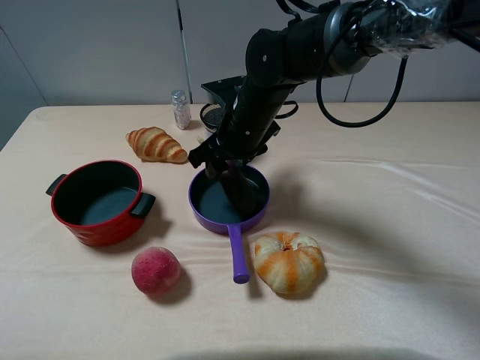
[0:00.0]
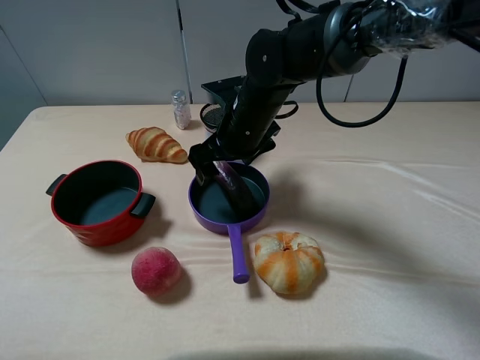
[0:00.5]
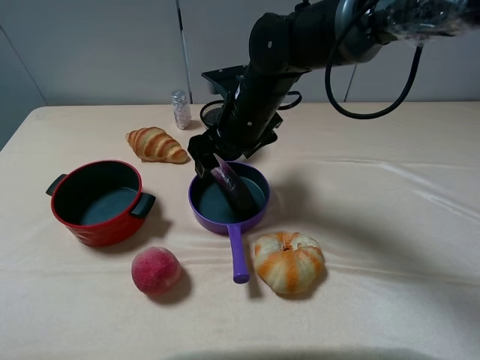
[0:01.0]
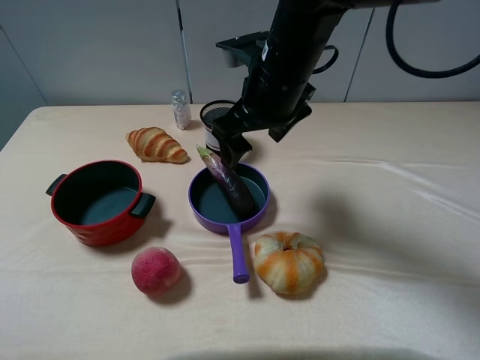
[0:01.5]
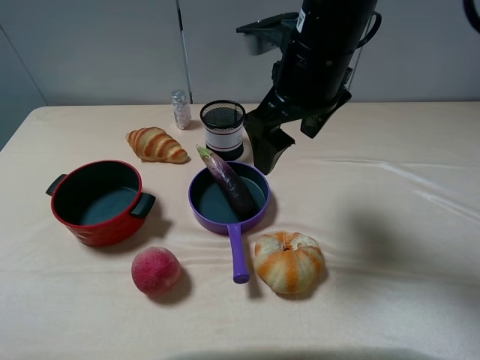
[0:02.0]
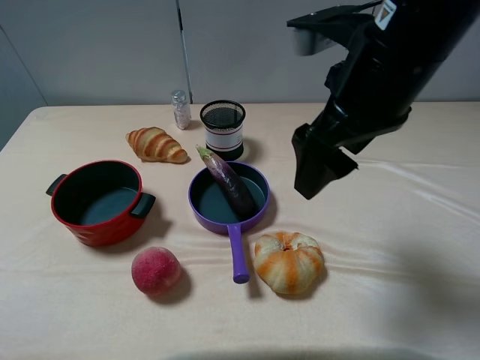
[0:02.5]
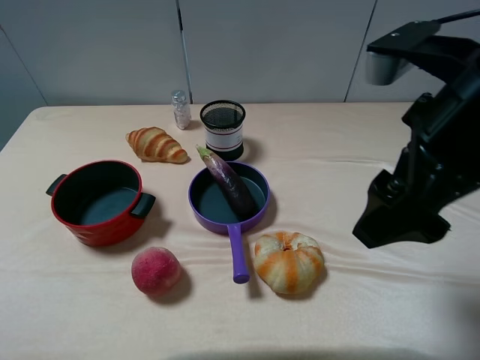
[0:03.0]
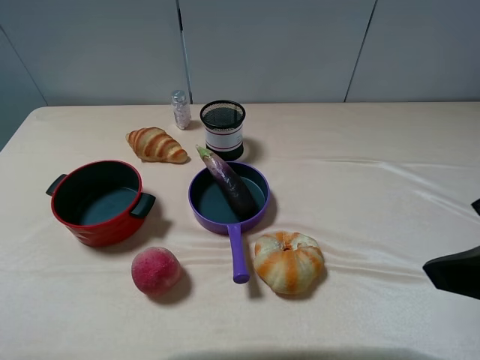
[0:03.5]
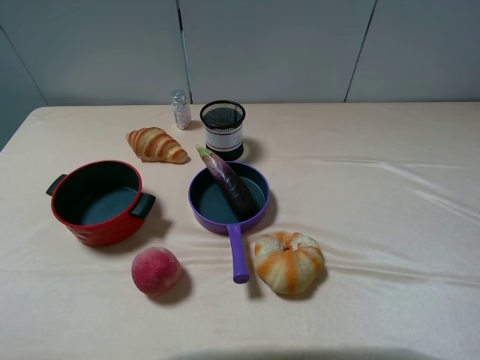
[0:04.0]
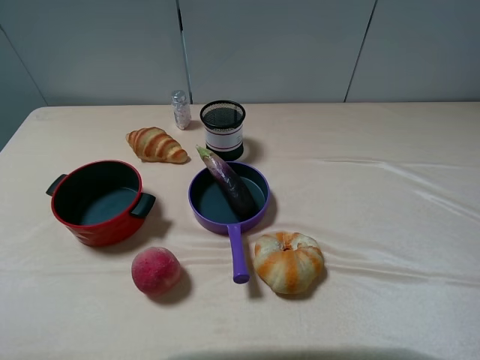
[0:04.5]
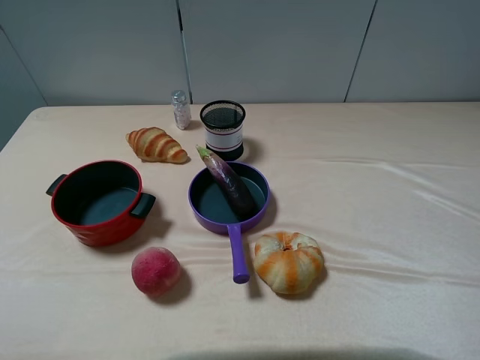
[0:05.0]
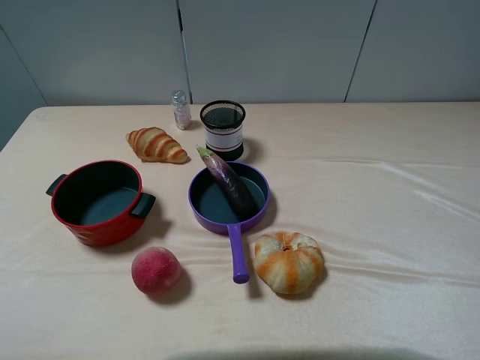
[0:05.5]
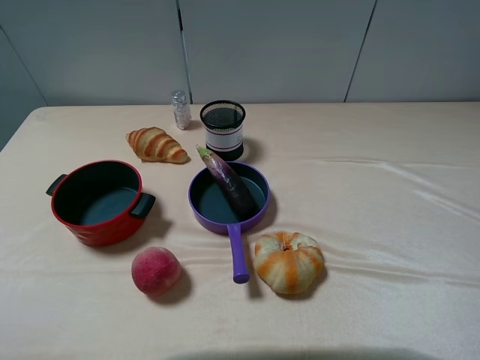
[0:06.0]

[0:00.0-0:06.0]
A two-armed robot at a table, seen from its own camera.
Task of the whole recording: pick up an item with a gripper and place it in a random container on the table.
0:00.0 to 0:02.0: The right gripper is displaced upward, backward and to the right by approximately 15 cm, and opens its fingers.
0:02.0 to 0:04.0: The right gripper moves backward and to the right, approximately 35 cm.

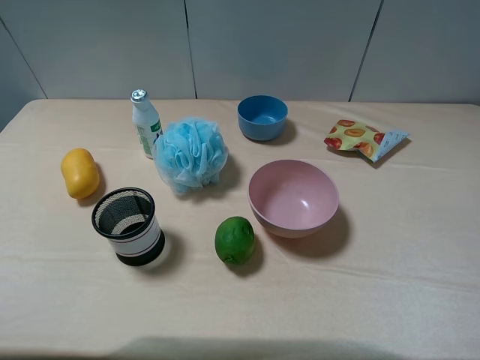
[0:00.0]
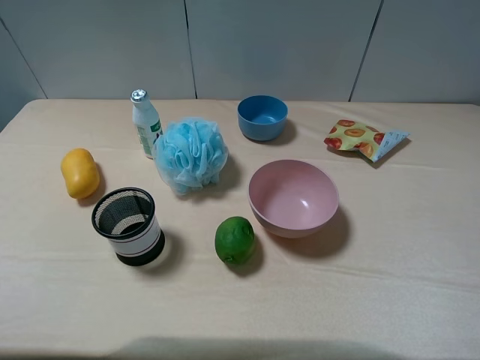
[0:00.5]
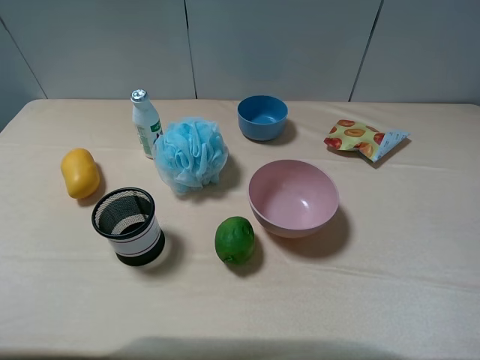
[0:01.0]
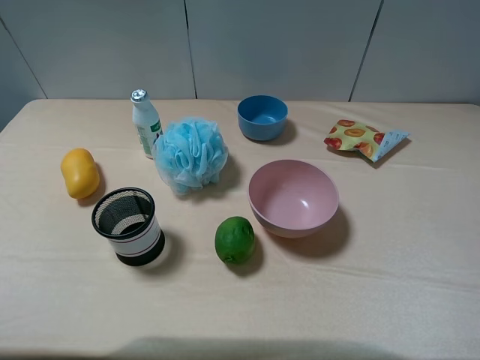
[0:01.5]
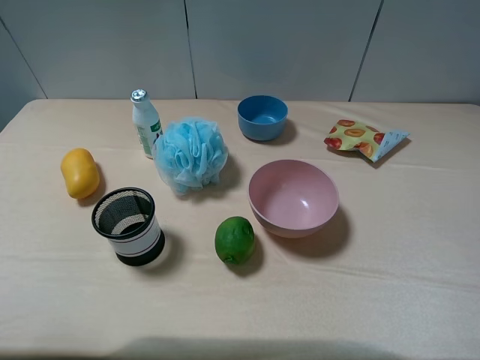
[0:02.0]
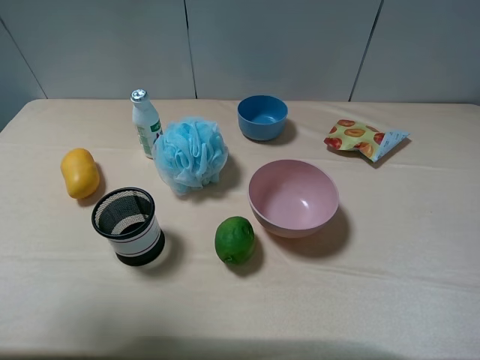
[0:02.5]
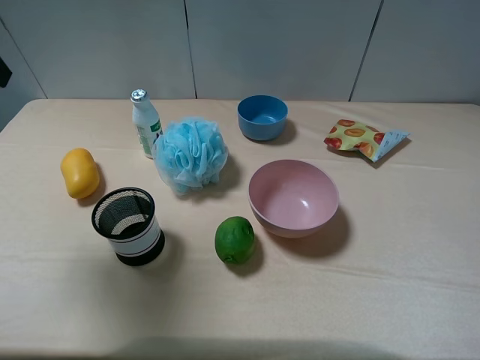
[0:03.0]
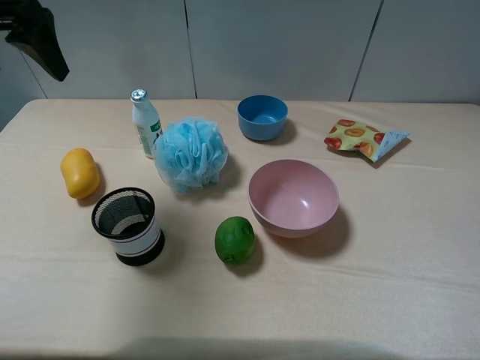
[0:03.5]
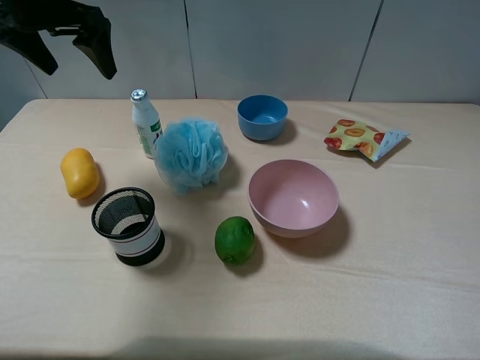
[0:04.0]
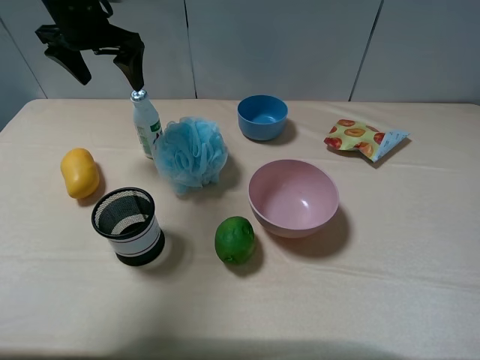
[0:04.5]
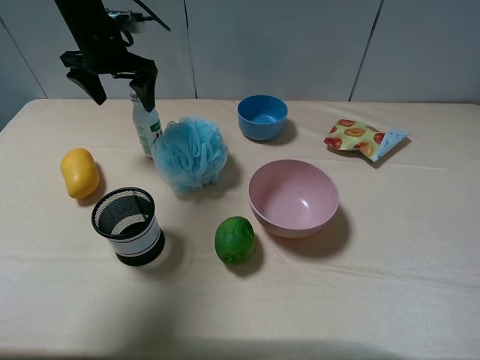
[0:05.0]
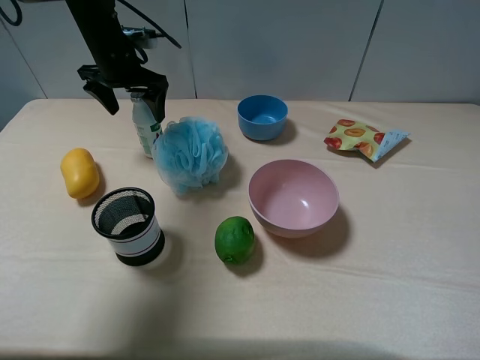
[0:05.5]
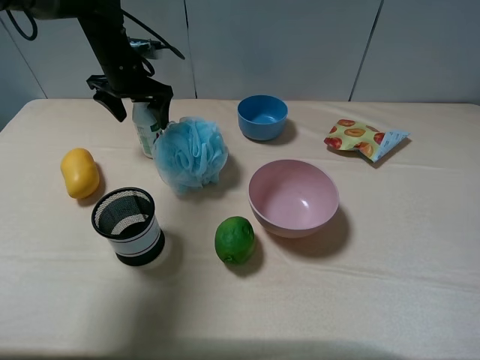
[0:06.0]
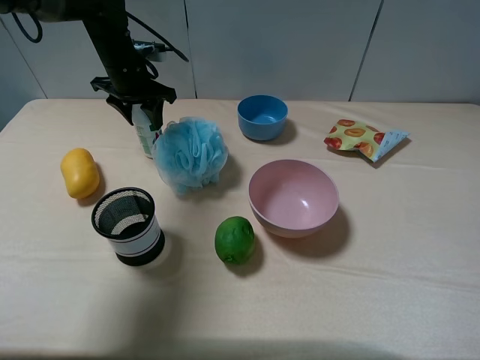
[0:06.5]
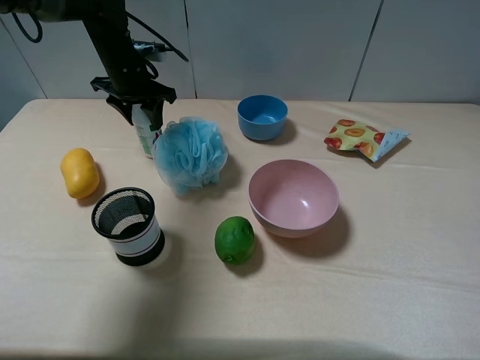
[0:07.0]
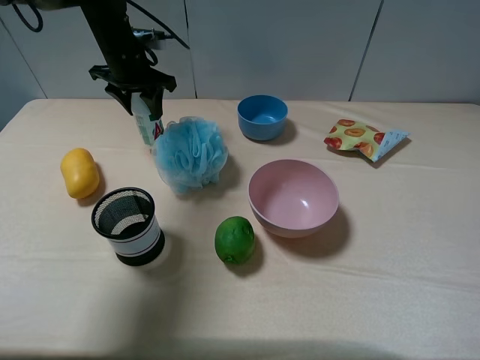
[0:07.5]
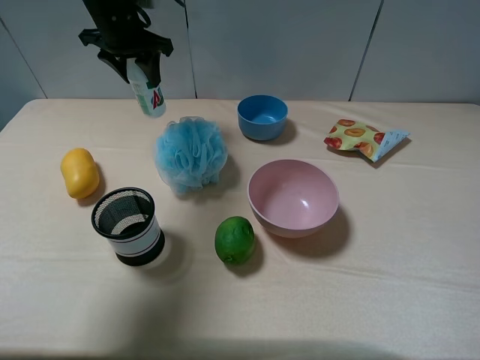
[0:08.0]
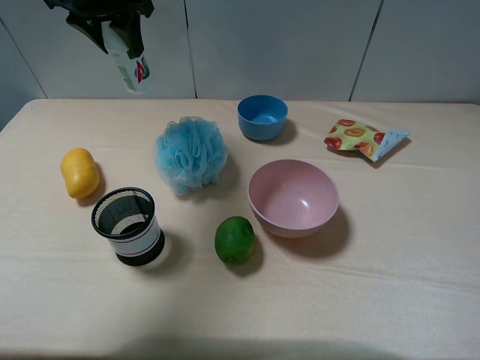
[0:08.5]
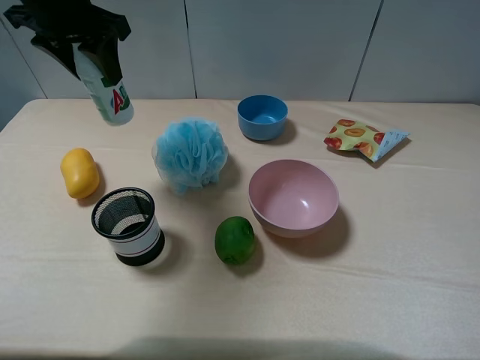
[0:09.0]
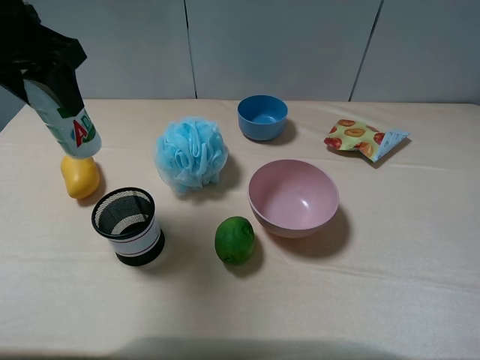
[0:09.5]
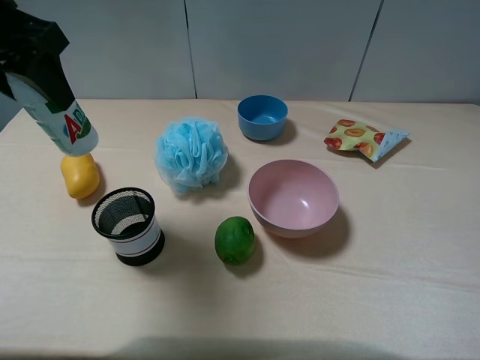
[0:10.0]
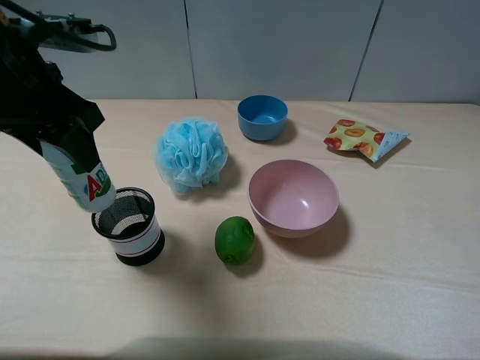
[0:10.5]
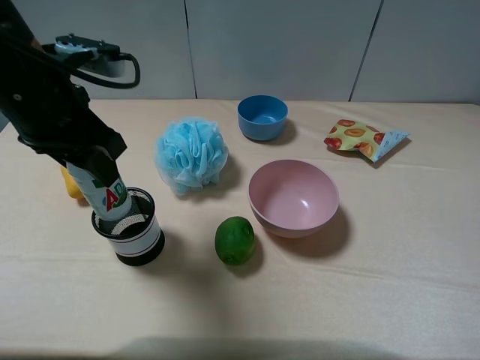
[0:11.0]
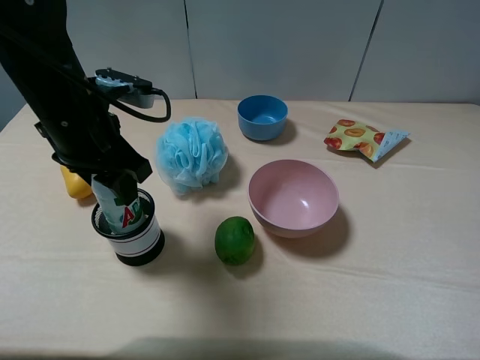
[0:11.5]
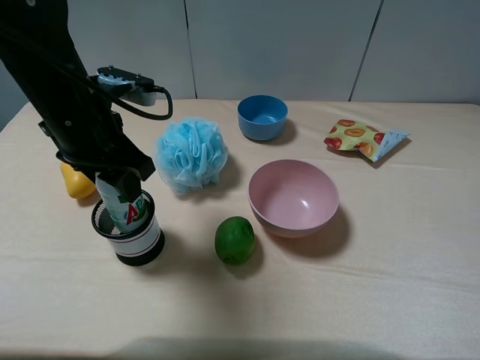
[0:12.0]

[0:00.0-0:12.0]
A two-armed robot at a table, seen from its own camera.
Task of the whole recording: pick up an item with a gripper and place it in a random container on the table.
Step, 0:00.0 to 0:06.0: Grasp the AD milk with the left gripper.
0:02.0 to 0:04.0: The left gripper travels forward by some 30 cm.
0:04.0 to 0:06.0: The left gripper travels downward and forward by some 15 cm.
0:06.0 to 0:08.0: The left gripper goes roughly 10 cm upward, and closes.
0:08.0 to 0:10.0: The left gripper heads backward, covering some 20 cm.
0:10.0 to 0:12.0: The left gripper travels downward and to the right by some 15 cm.

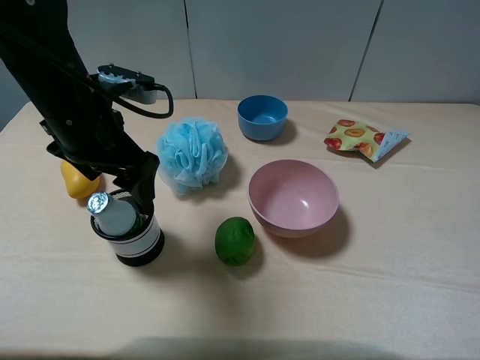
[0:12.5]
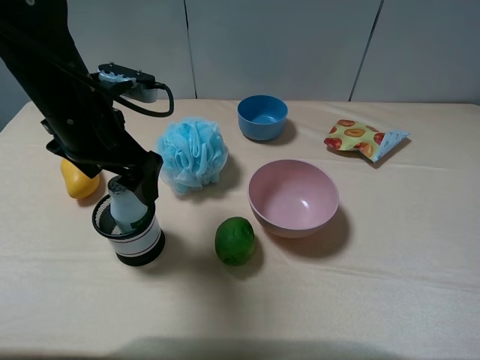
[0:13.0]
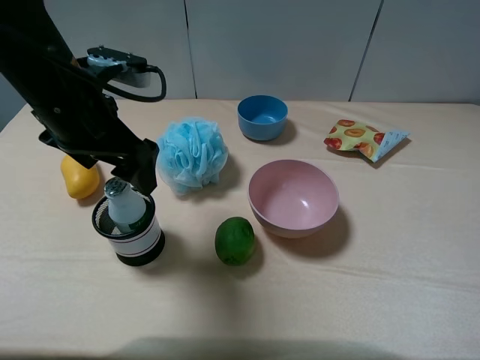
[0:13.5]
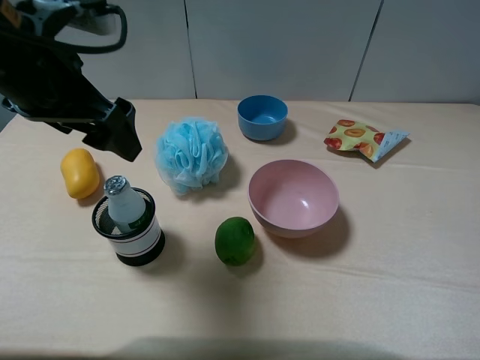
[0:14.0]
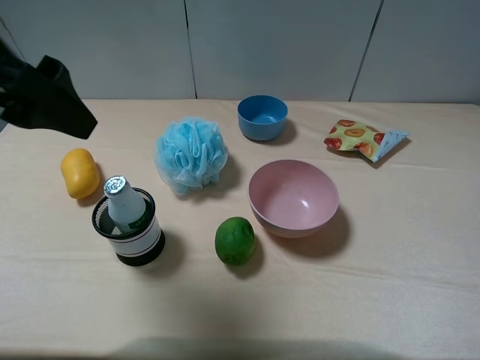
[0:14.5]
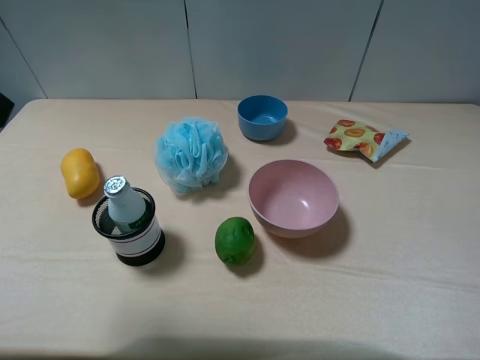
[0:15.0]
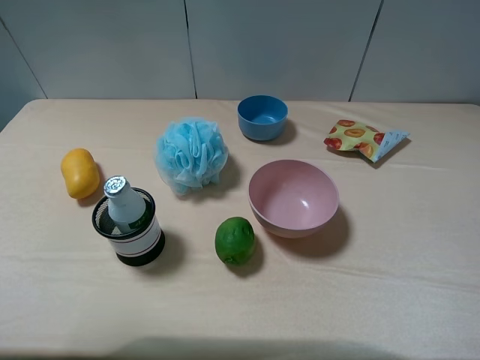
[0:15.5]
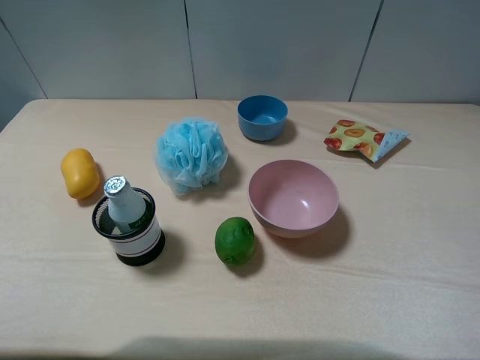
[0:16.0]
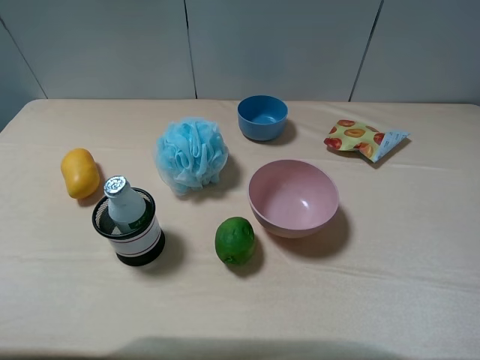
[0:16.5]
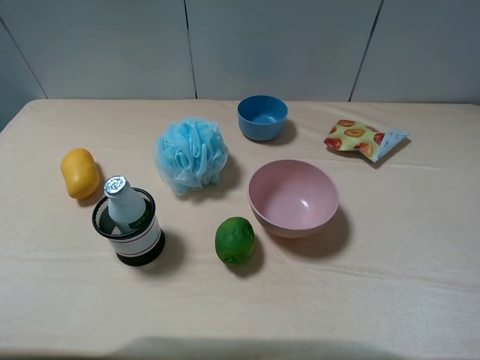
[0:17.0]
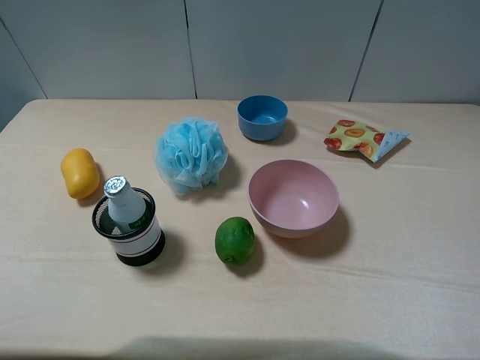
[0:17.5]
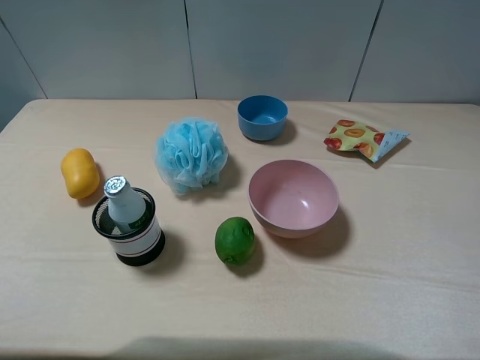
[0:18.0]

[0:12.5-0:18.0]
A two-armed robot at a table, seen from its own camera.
Task of the whole recording: pick up an item with a gripper and place it in a random container on the table.
0:12.5 to 0:14.5: The left gripper travels upward, backward and to the left by roughly 15 cm.
0:14.5 to 0:16.0: The left gripper moves backward and to the left, about 15 cm.
